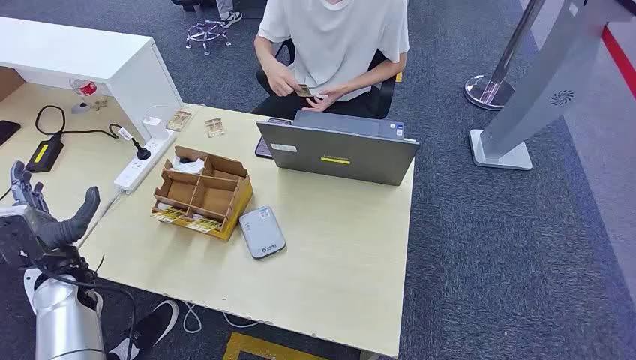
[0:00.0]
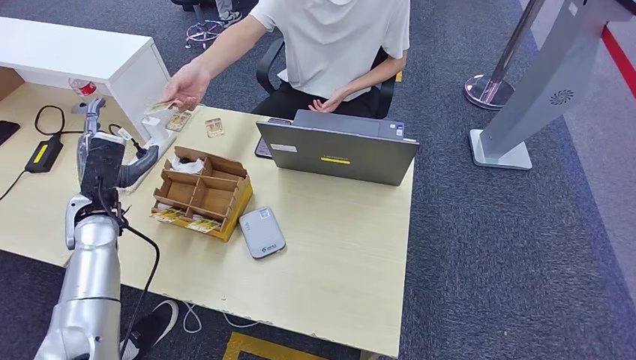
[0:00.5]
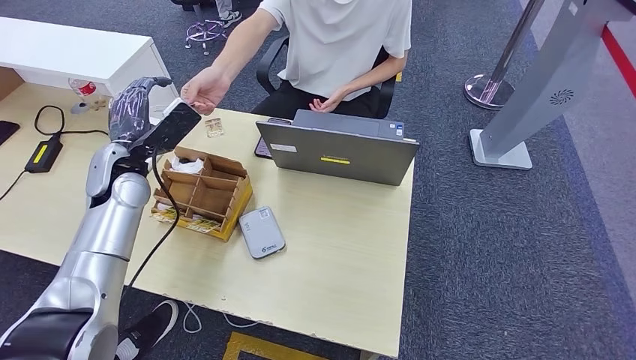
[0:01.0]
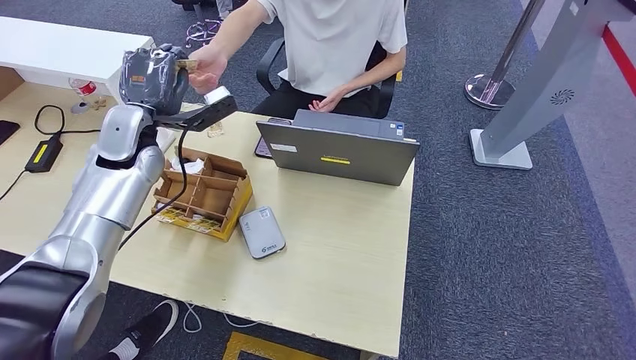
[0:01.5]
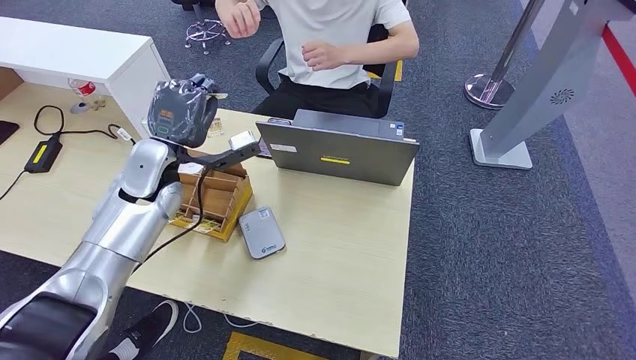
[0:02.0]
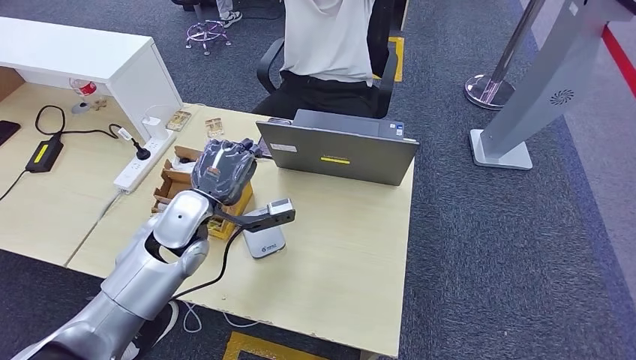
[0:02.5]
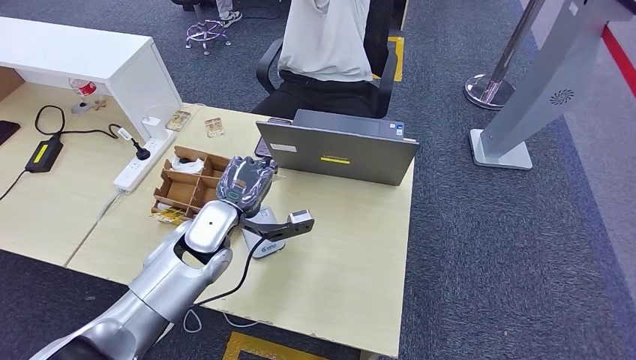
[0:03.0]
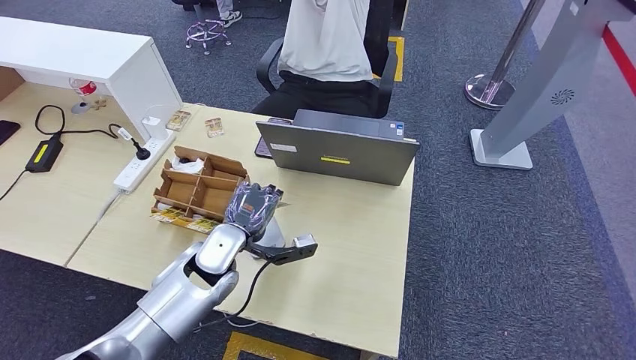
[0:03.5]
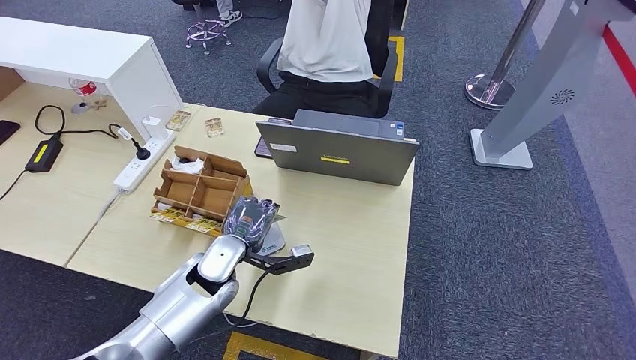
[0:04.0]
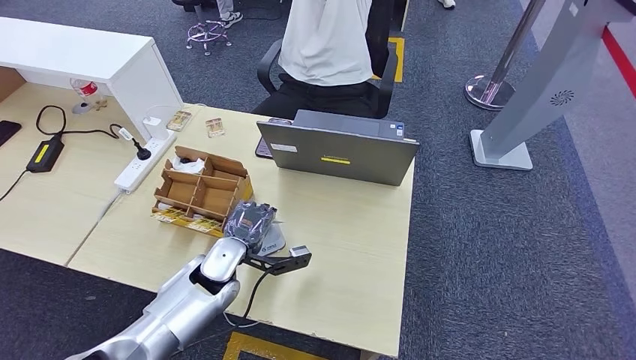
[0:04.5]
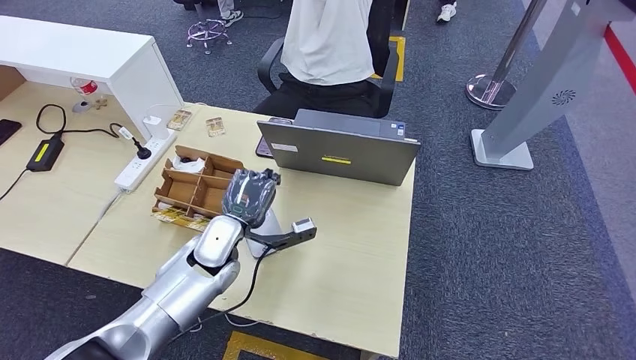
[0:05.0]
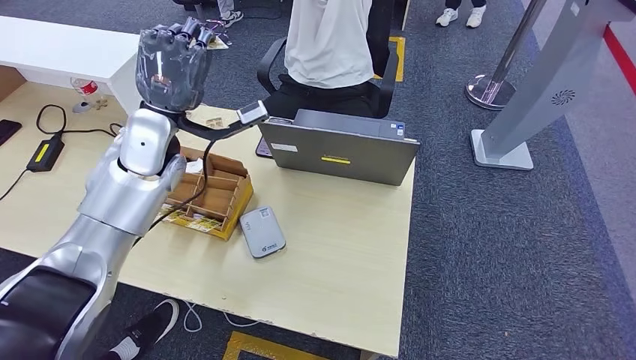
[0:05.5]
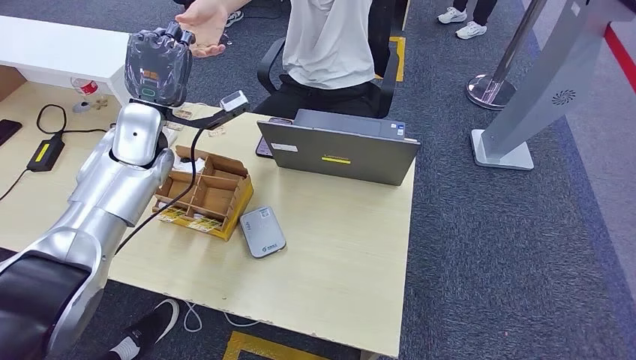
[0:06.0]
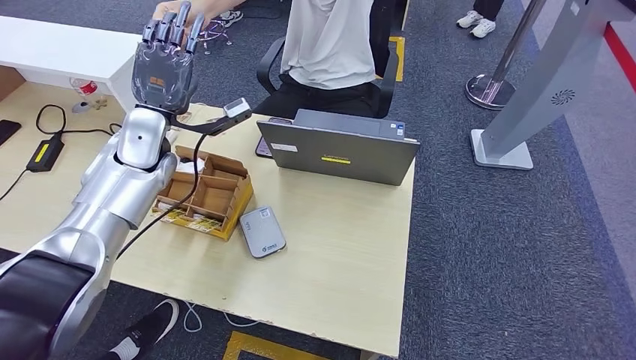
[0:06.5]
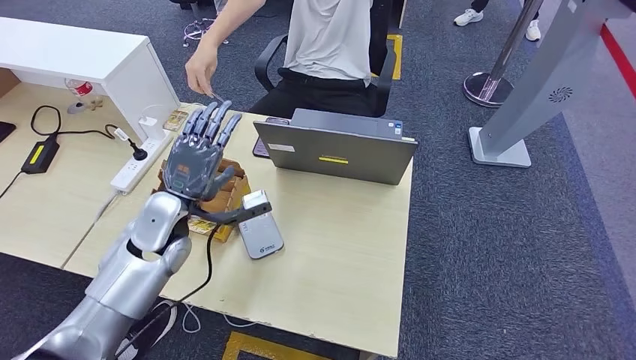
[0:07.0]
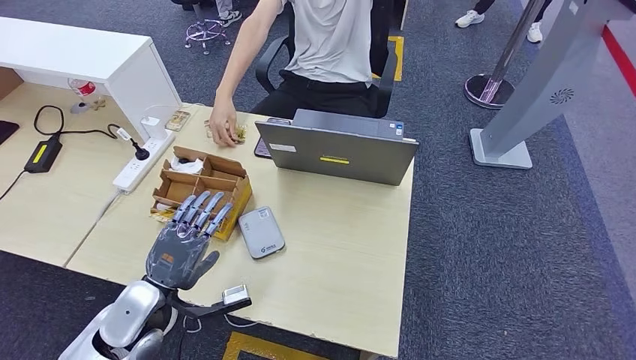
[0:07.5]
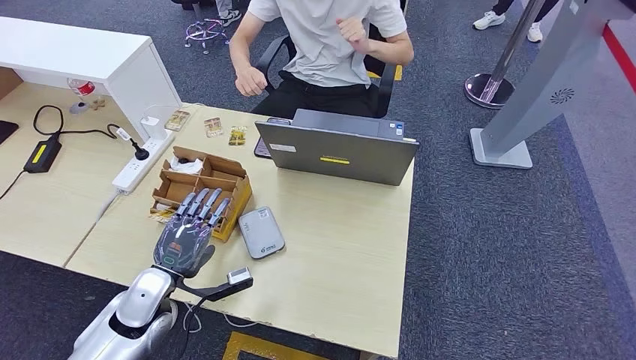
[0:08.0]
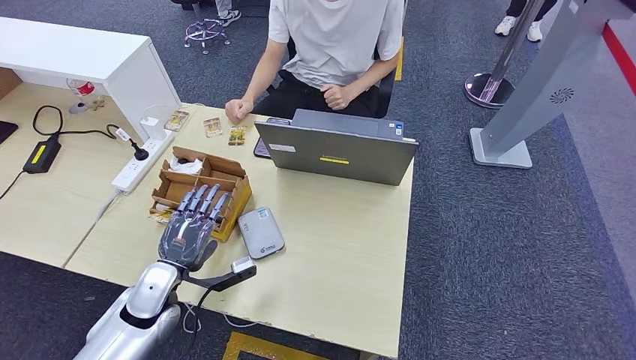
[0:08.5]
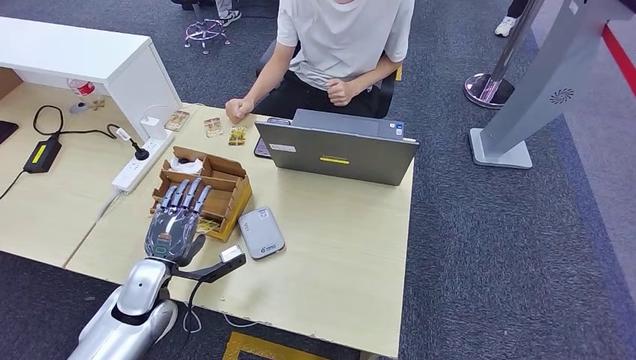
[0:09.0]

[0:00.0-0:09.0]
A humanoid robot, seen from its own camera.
Step, 0:00.0 to 0:02.0: Take the ID card from the person's hand.
Step, 0:02.5 to 0:04.5: Place the ID card on the card reader.
Step, 0:05.0 to 0:07.0: Hand the ID card to the person.
0:02.0 to 0:04.5: The left hand moves downward, to the right and backward, approximately 20 cm.
0:04.5 to 0:07.0: The left hand shifts about 15 cm upward and to the left.
0:07.0 to 0:09.0: The left hand shifts some 15 cm downward and backward.

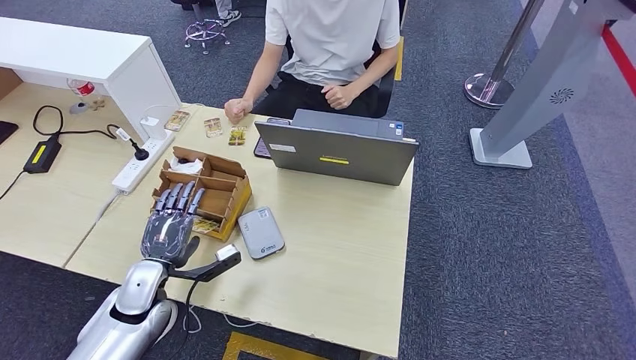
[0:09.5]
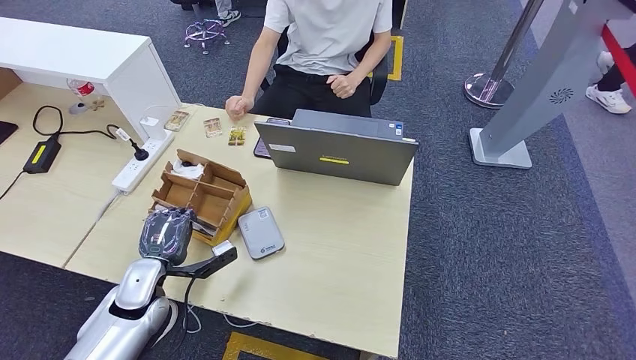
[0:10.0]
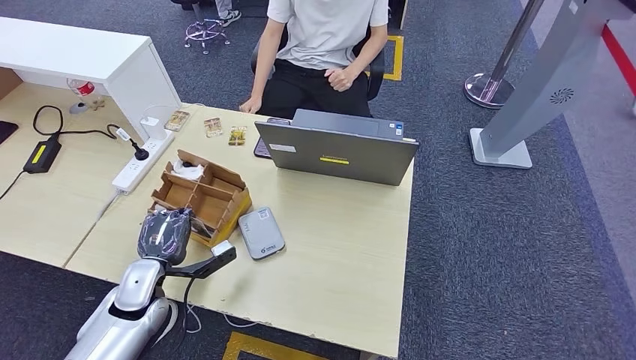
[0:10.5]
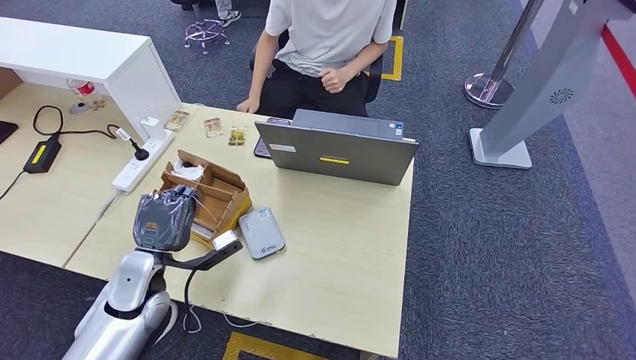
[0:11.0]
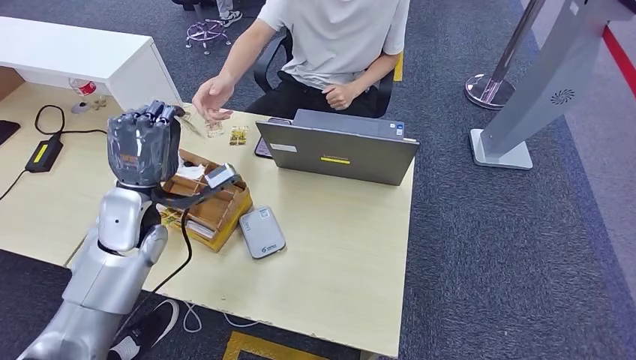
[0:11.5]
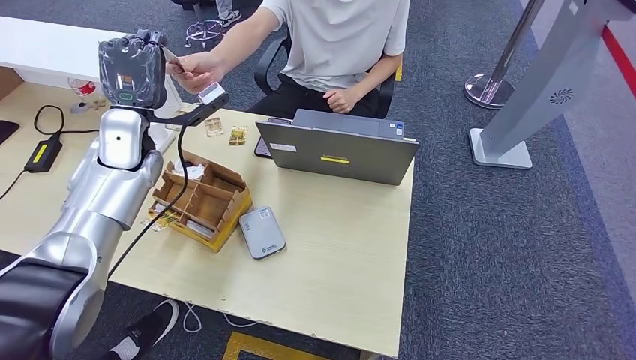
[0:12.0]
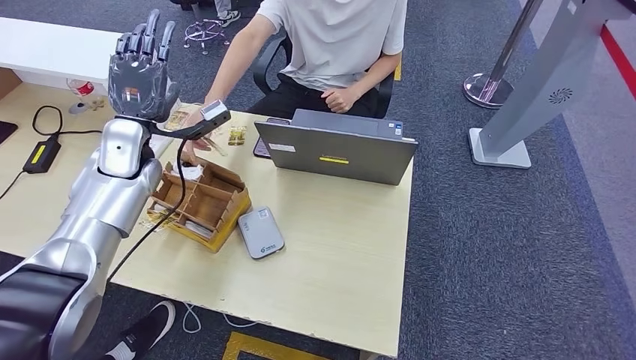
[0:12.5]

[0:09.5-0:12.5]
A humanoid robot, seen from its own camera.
Step, 0:09.5 to 0:11.0: Pick up the room key from the key card box.
Step, 0:11.5 to 0:12.5: Hand the room key to the person.
0:09.5 to 0:11.0: The hands stay close to where they were, moving slightly.
0:11.0 to 0:12.5: The left hand shifts approximately 20 cm forward and upward.
